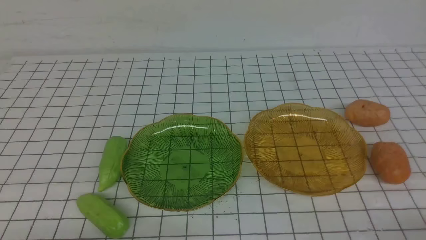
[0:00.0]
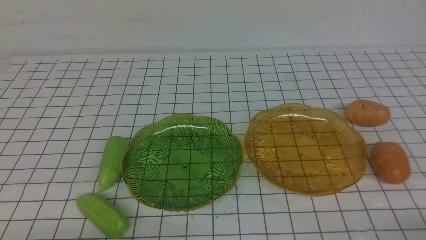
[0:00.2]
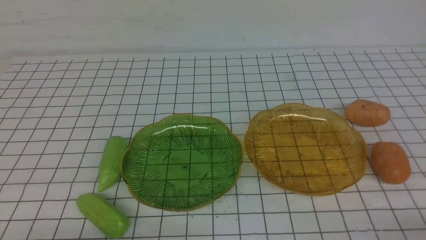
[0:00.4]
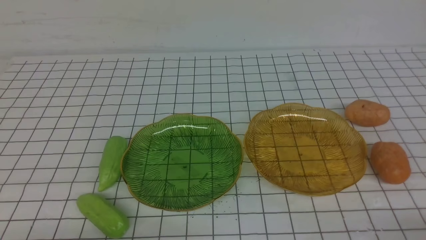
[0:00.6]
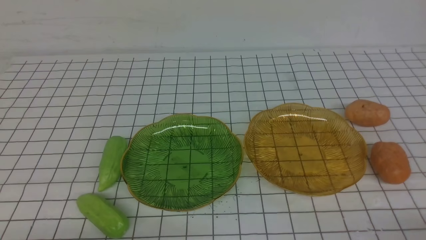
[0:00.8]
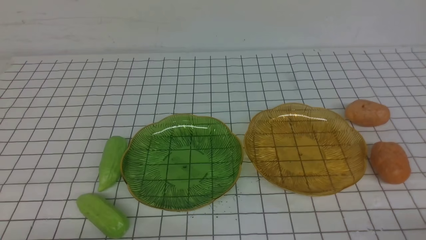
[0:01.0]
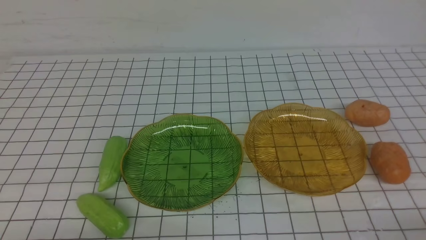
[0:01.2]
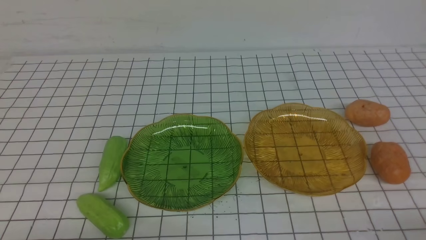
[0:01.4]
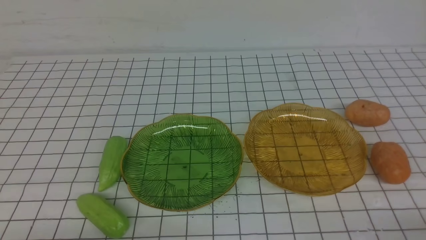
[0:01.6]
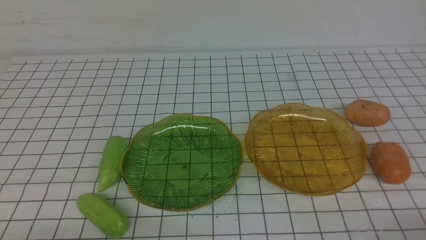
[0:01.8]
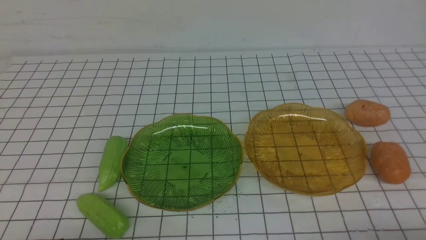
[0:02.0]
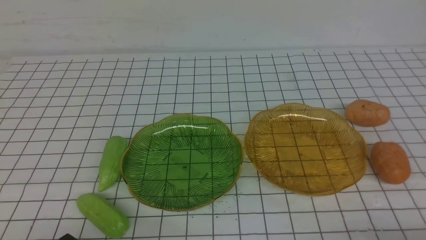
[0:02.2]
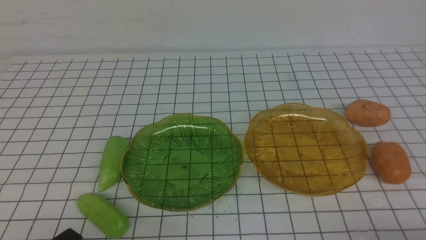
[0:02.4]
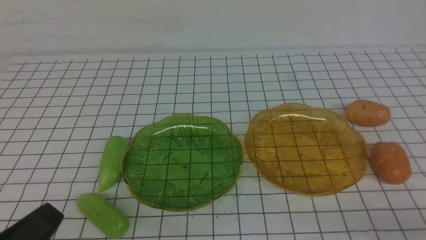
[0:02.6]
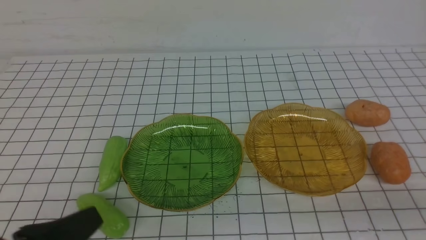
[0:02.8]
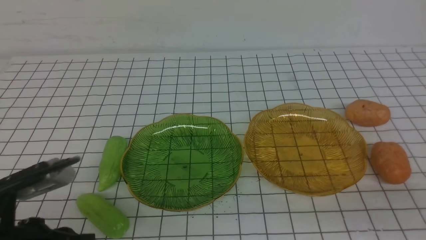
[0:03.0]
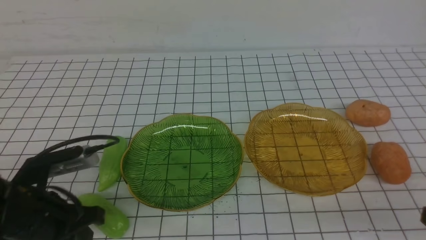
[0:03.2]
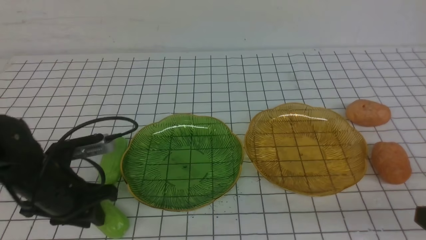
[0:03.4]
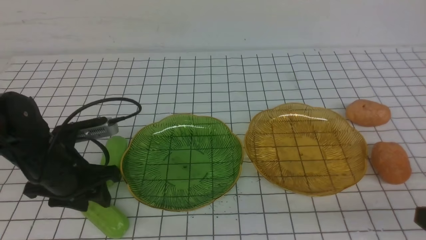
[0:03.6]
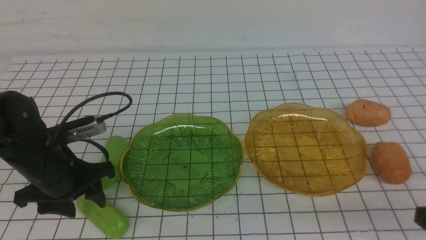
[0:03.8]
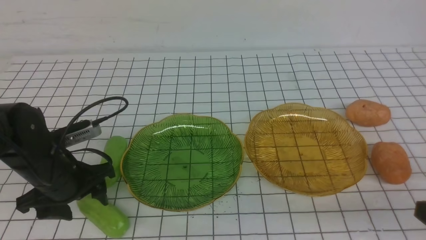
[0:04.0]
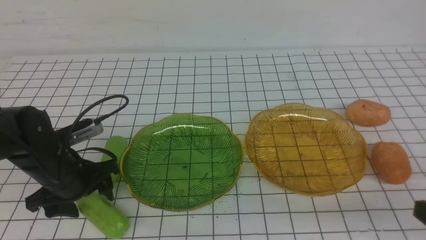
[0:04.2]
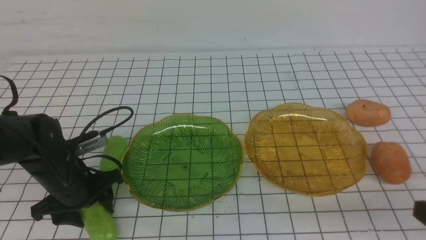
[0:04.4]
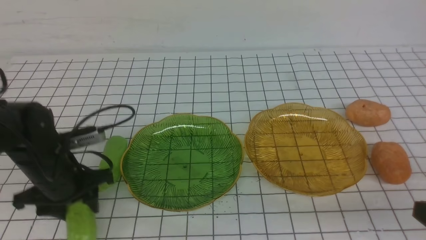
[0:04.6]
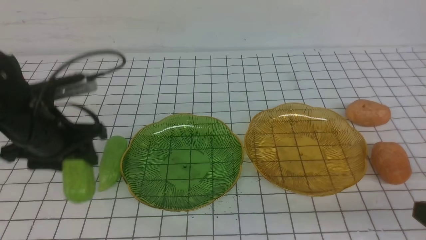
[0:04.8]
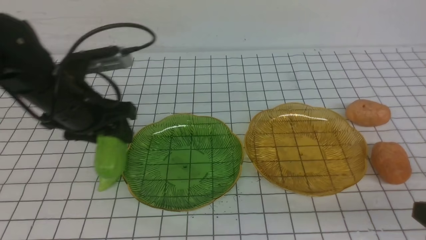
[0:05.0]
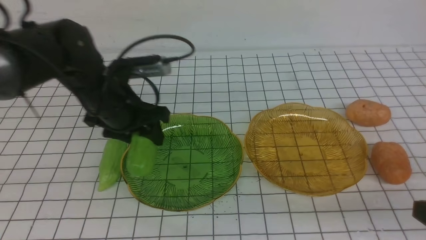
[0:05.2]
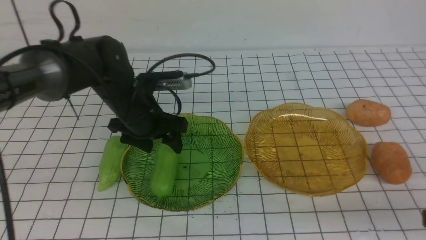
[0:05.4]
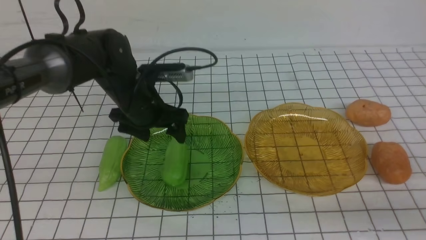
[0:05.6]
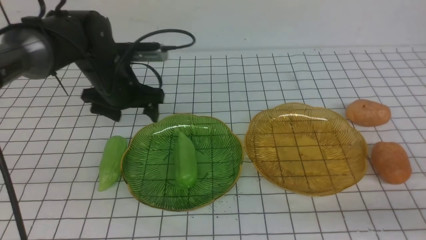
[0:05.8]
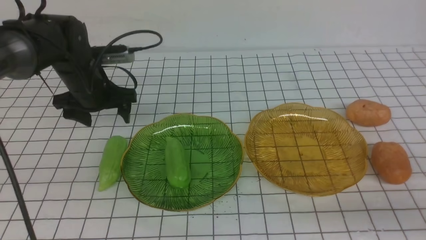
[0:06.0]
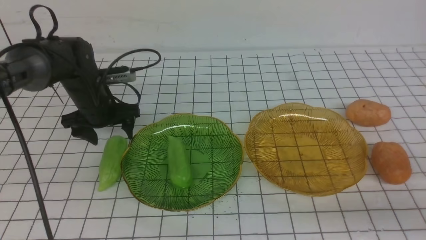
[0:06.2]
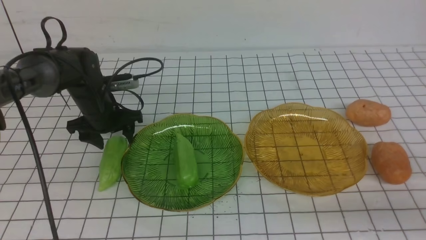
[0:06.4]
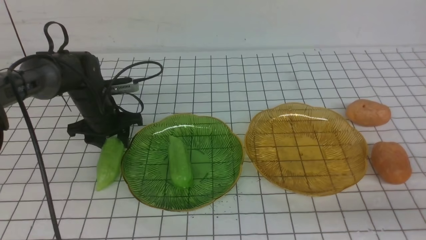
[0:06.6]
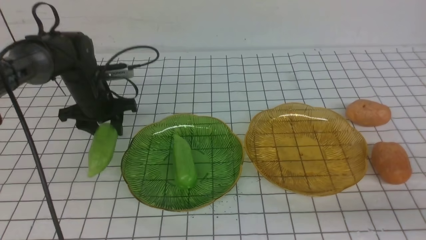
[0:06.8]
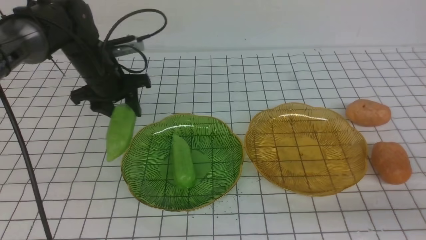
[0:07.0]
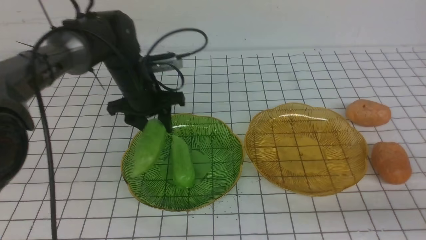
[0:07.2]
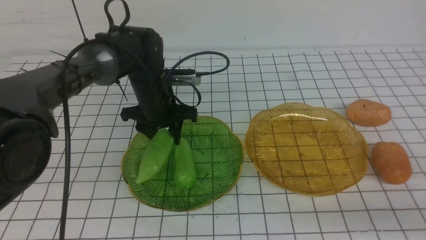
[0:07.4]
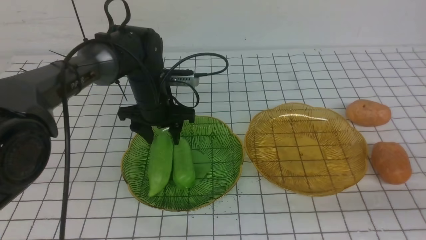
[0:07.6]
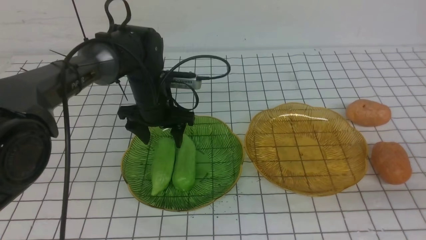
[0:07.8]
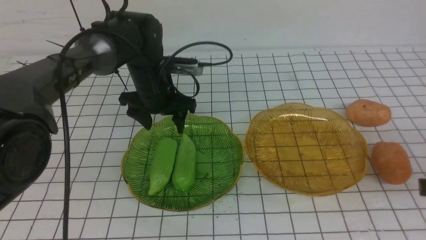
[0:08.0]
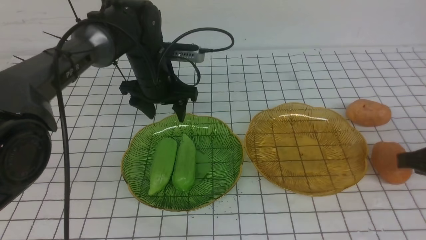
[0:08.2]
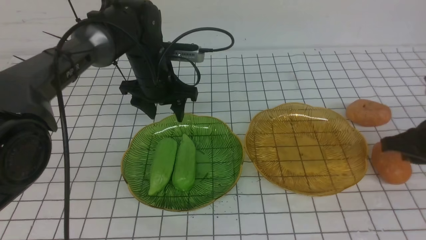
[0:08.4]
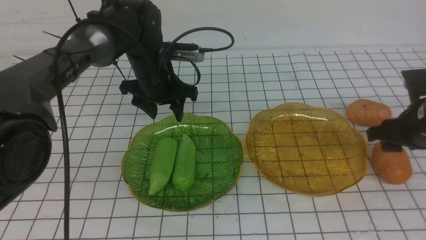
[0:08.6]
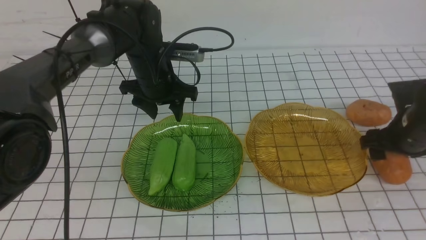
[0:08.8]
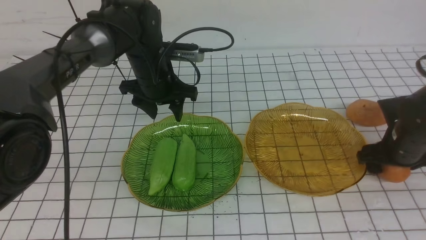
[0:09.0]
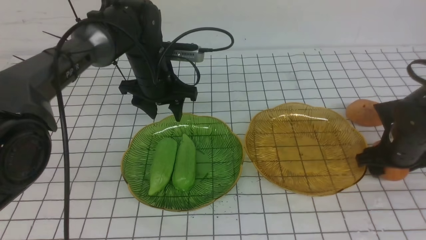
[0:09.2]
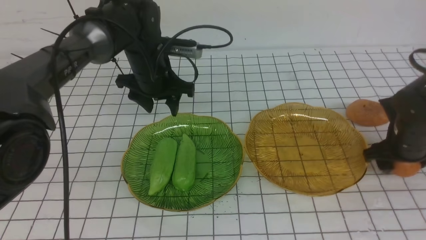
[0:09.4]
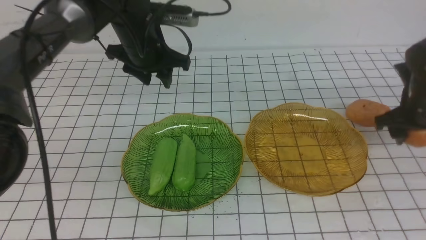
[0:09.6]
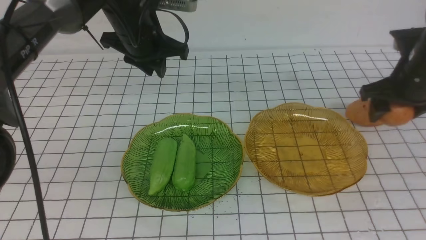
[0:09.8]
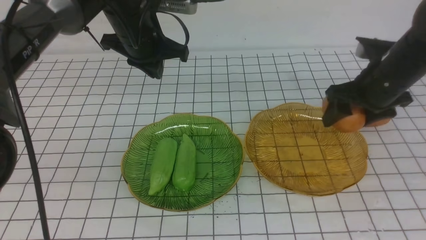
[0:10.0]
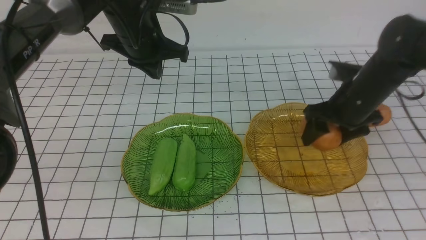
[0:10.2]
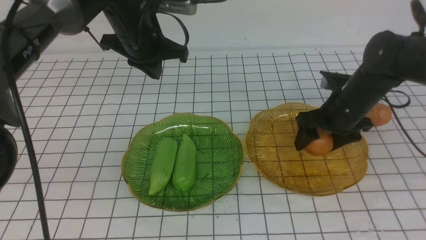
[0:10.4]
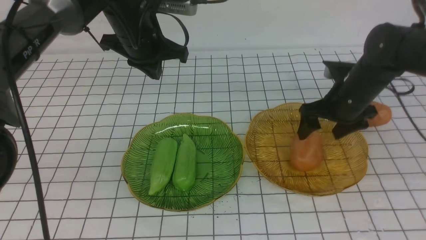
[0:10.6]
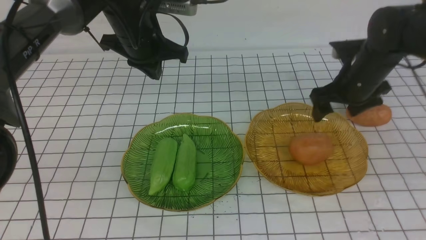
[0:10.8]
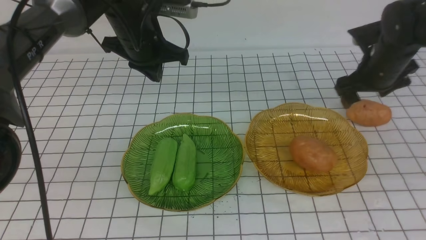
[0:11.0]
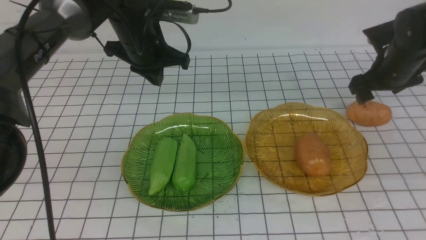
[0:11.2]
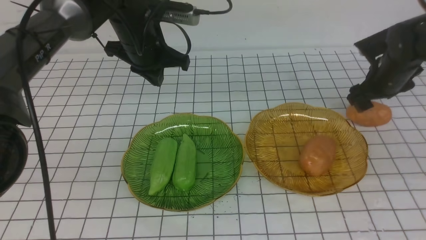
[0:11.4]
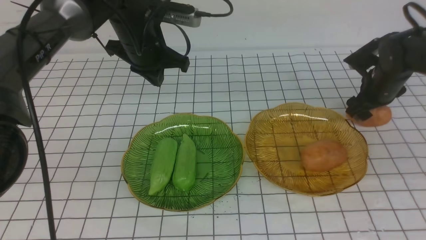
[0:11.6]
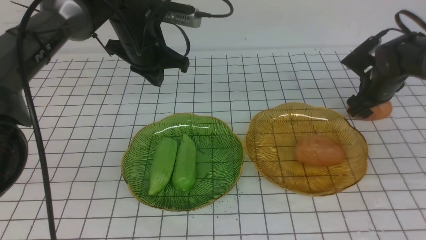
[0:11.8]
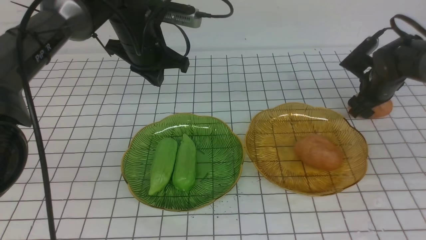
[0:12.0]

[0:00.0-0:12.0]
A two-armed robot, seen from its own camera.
Step, 0:00.0 to 0:07.6: use the left arm to grab a chayote and put it into the left plate.
Step, 0:08.0 to 0:10.6: Grab a potato with your right arm and put it on the right plate.
0:00.0 to 0:01.6: The two grippers keep their place.
0:01.6 to 0:03.0: The left gripper shifts about 10 cm forward and upward. The right gripper is displaced upward by about 10 cm.
0:03.0 to 0:04.4: The left gripper heads forward and downward, covering approximately 15 cm, and opens up.
0:04.4 to 0:06.0: The left gripper moves forward, some 15 cm.
0:06.0 to 0:07.6: The left gripper moves to the right, about 10 cm.
0:07.6 to 0:09.0: The right gripper travels forward and downward by approximately 25 cm, and opens its fingers.
0:09.0 to 0:10.4: The right gripper moves to the left and forward, about 10 cm, while the left gripper heads upward, covering roughly 10 cm, and closes its fingers.
0:10.4 to 0:12.0: The right gripper is displaced to the right and forward by approximately 10 cm.

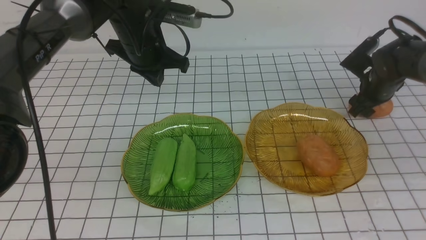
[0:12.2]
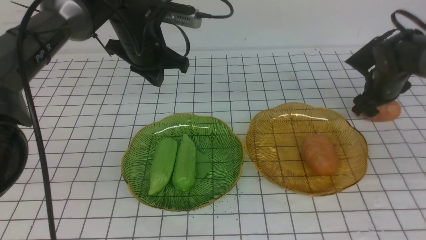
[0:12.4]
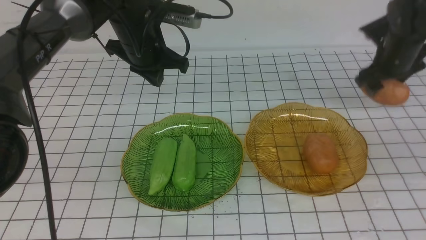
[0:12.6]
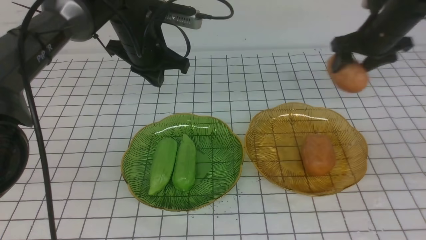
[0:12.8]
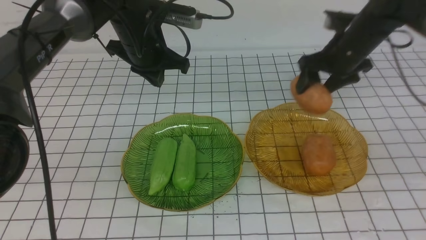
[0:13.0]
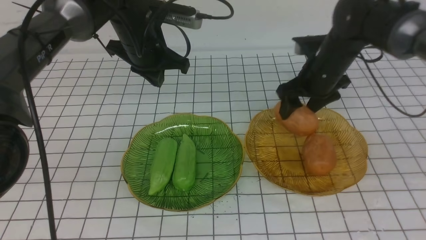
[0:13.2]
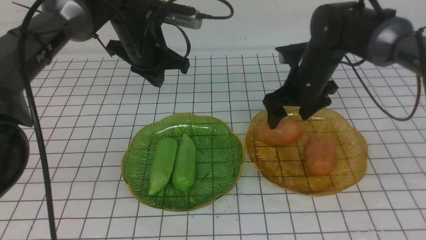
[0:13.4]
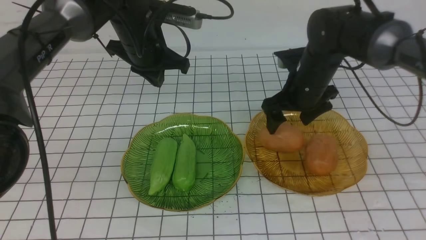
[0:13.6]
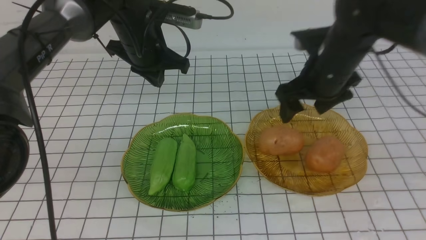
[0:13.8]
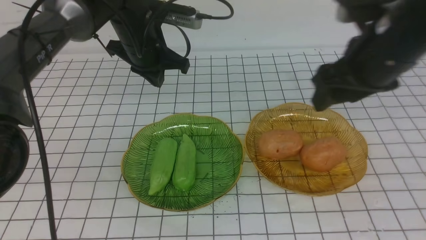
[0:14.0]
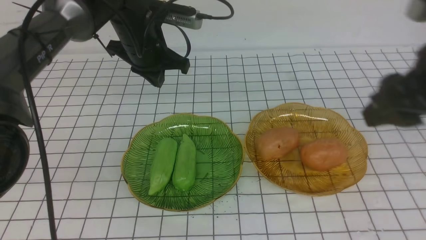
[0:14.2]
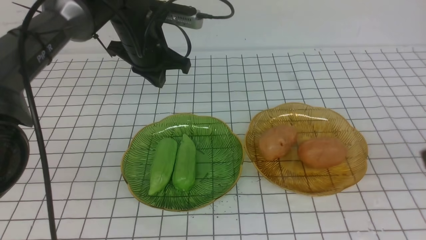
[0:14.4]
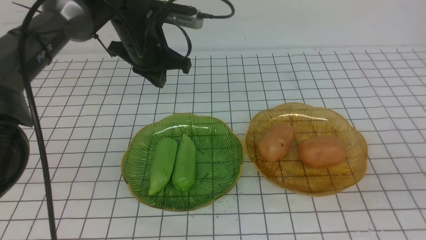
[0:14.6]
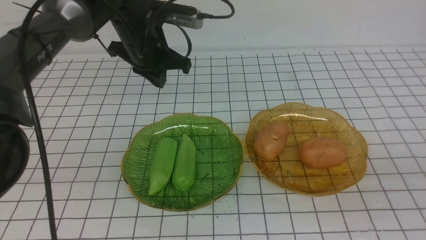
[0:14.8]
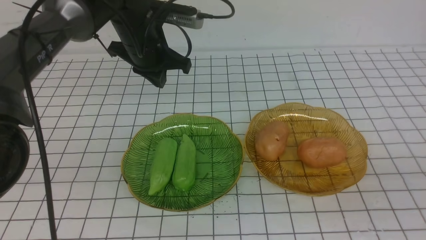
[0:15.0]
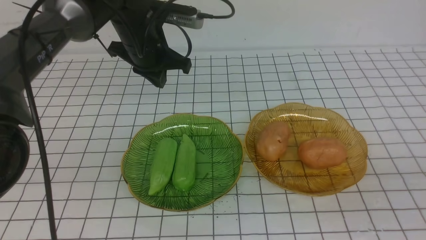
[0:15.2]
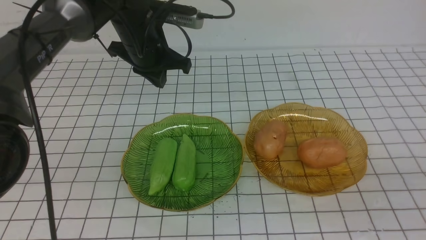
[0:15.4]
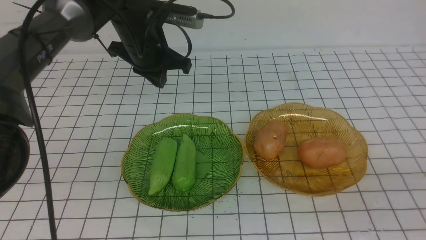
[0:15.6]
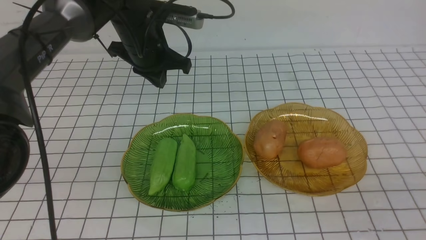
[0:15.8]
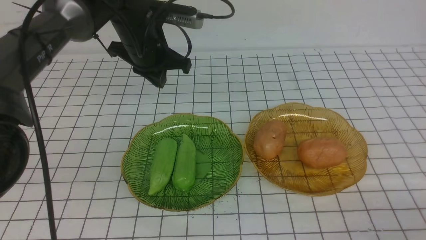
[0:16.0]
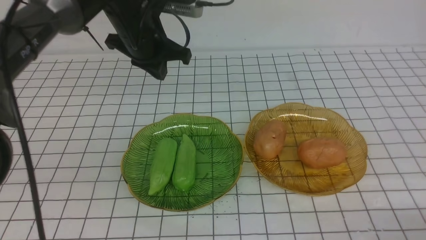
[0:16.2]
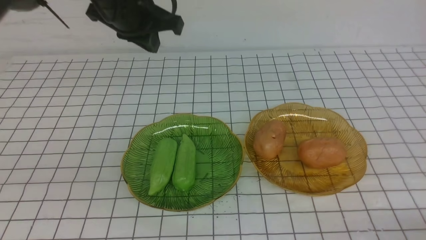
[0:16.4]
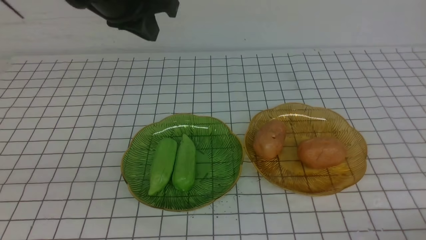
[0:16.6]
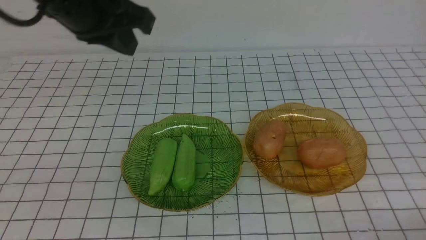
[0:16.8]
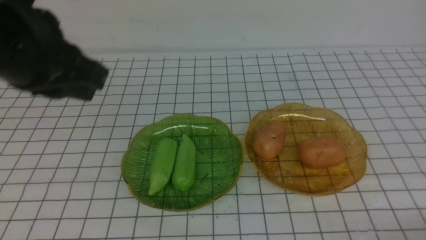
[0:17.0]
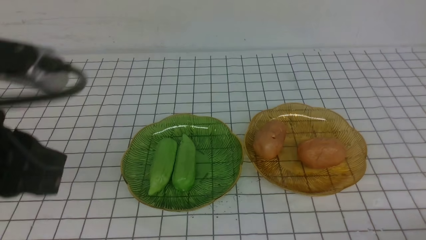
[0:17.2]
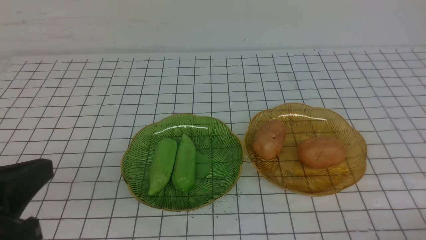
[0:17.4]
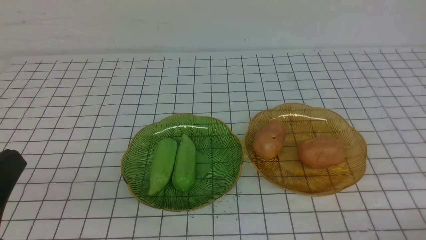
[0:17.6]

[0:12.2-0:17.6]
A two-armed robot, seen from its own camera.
Step, 0:12.2 to 0:13.6: Grab a potato with your right arm and put it on the right plate.
0:12.2 to 0:13.6: The right gripper goes roughly 20 cm to the left, upward and backward.
0:13.6 to 0:15.0: The right gripper goes approximately 35 cm backward, and closes.
0:15.0 to 0:16.2: The left gripper shifts by some 5 cm; the right gripper goes approximately 10 cm downward.
0:16.2 to 0:17.6: The left gripper is displaced backward by about 35 cm.
